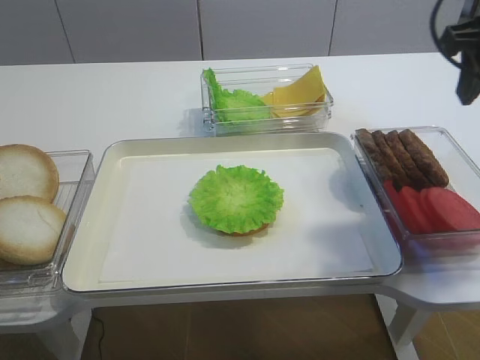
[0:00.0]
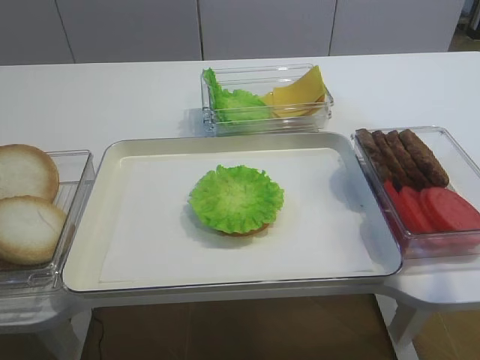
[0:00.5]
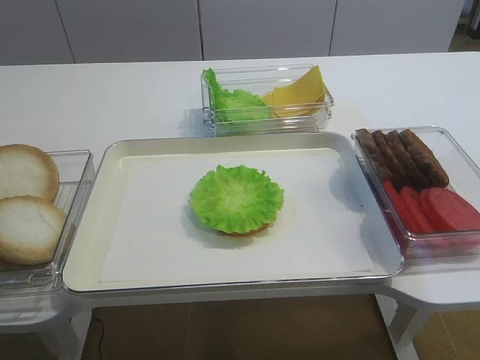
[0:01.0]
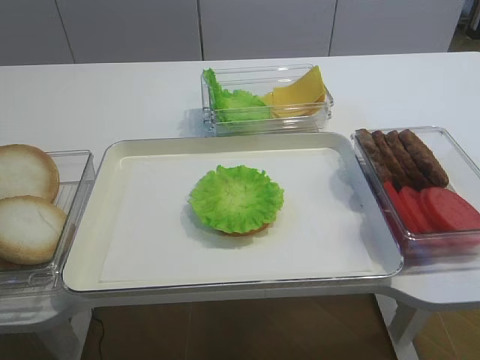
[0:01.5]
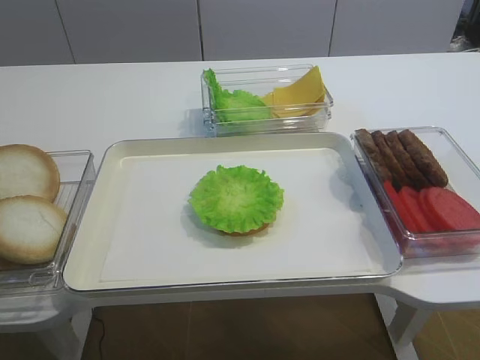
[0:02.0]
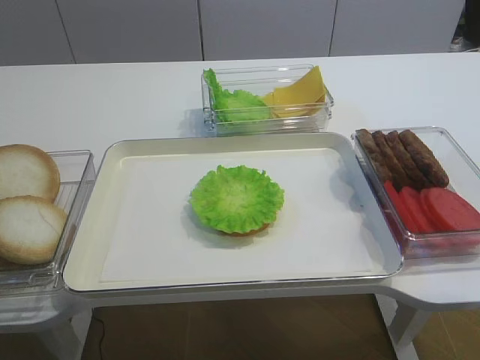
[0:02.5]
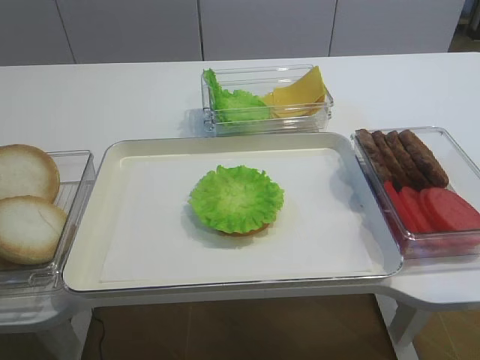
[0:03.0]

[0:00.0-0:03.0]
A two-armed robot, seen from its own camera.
0:00.0 to 0:01.5: The right gripper heads backward, covering approximately 25 cm.

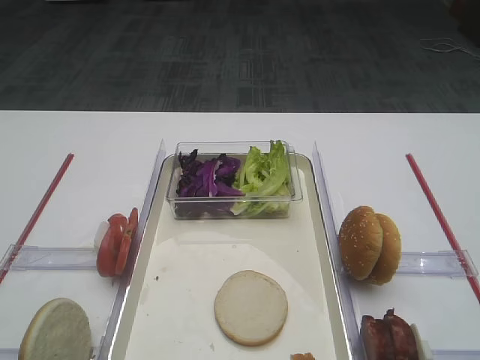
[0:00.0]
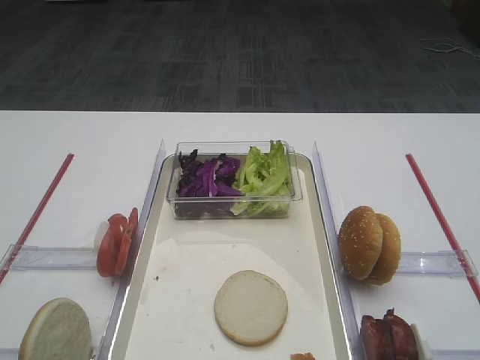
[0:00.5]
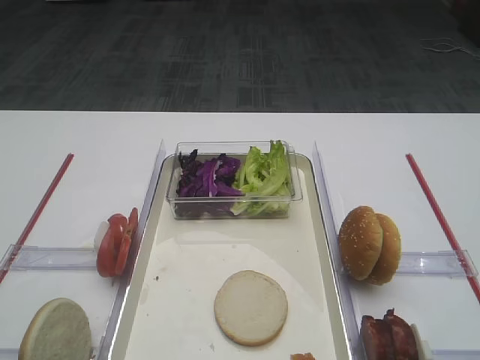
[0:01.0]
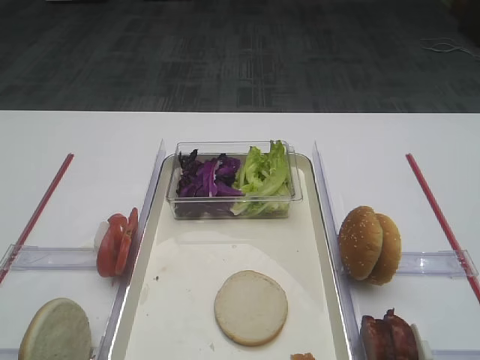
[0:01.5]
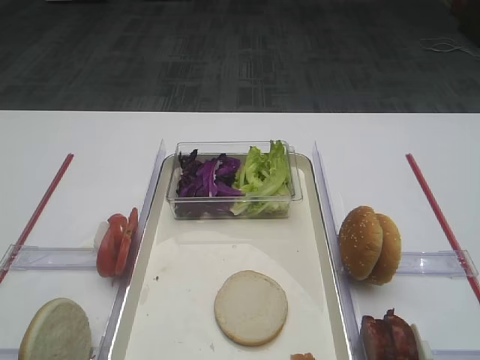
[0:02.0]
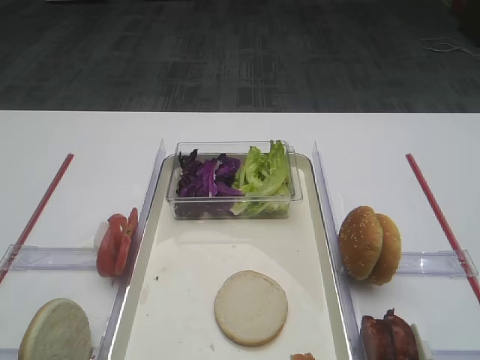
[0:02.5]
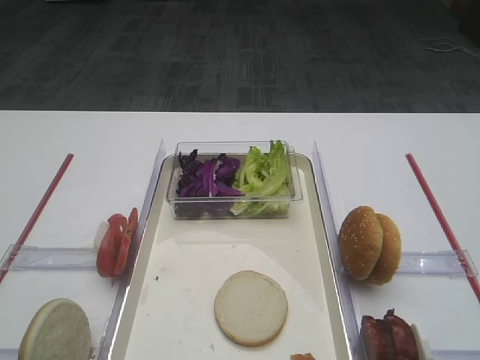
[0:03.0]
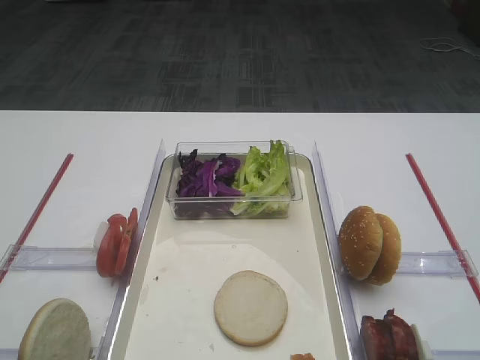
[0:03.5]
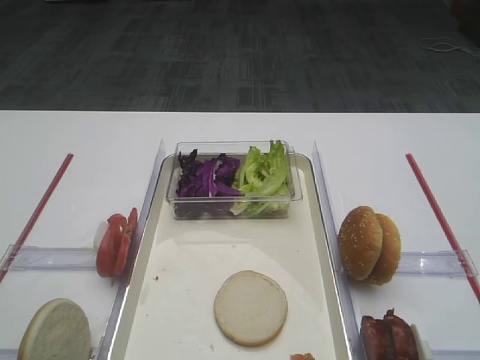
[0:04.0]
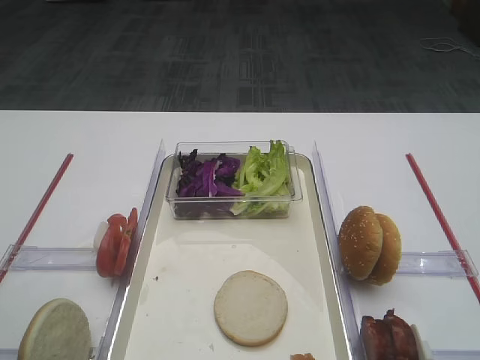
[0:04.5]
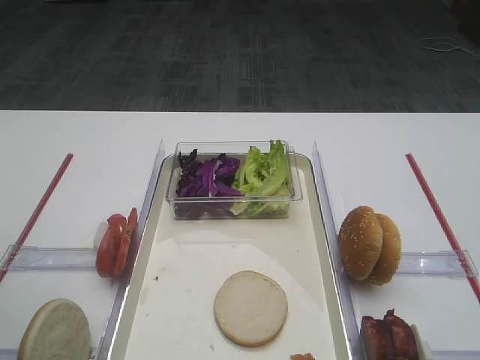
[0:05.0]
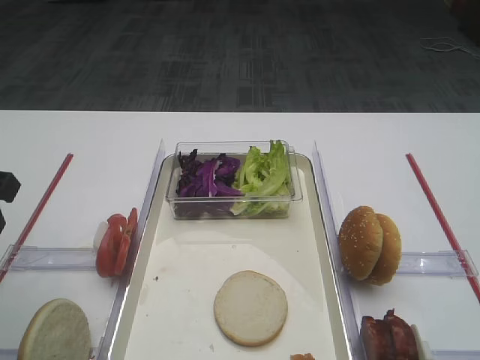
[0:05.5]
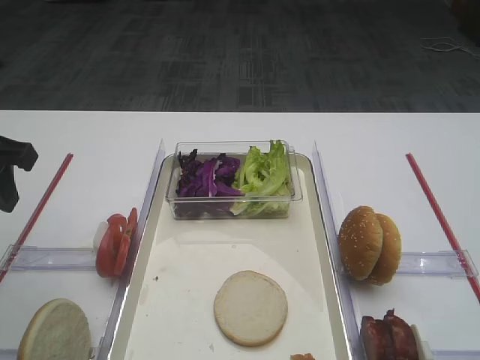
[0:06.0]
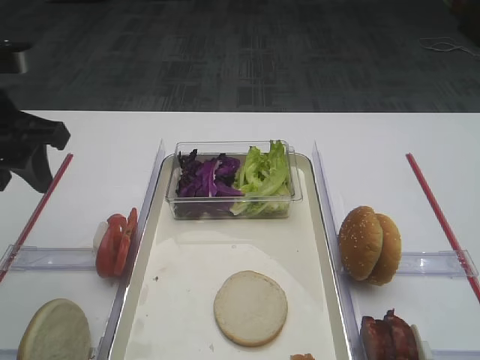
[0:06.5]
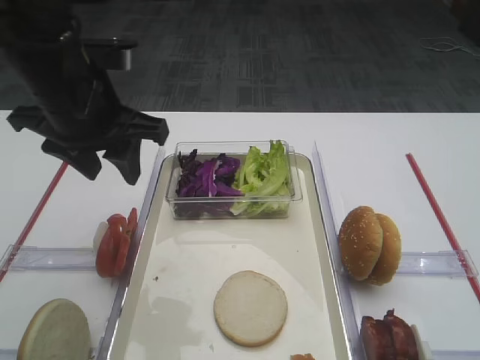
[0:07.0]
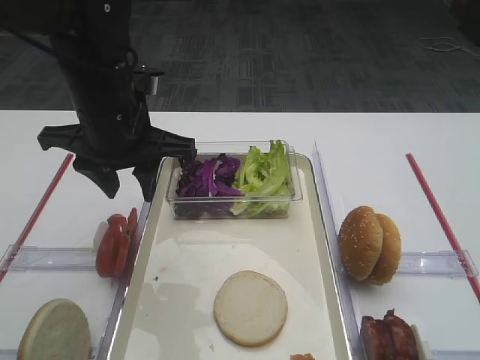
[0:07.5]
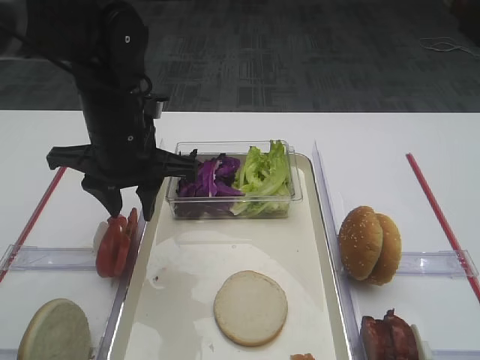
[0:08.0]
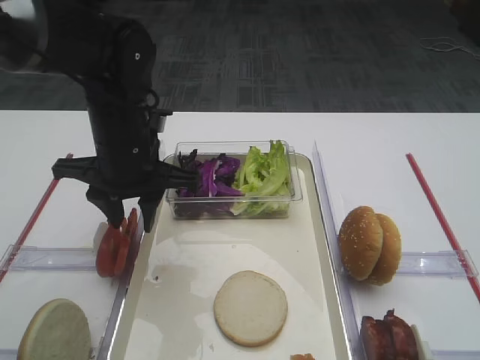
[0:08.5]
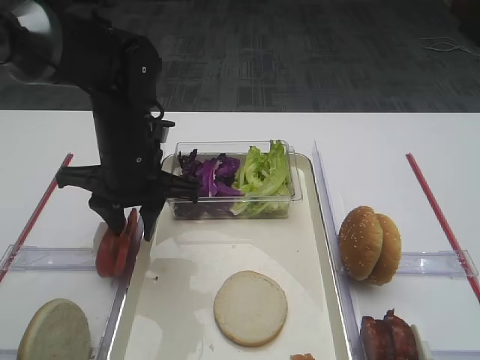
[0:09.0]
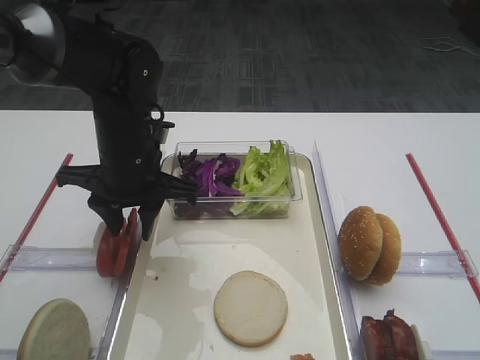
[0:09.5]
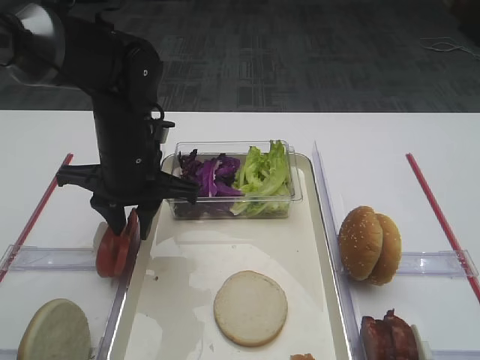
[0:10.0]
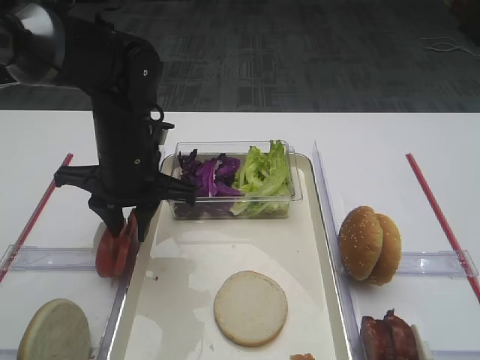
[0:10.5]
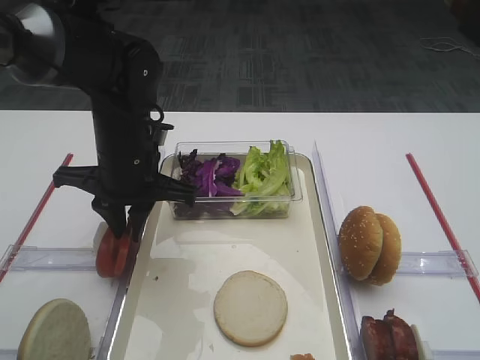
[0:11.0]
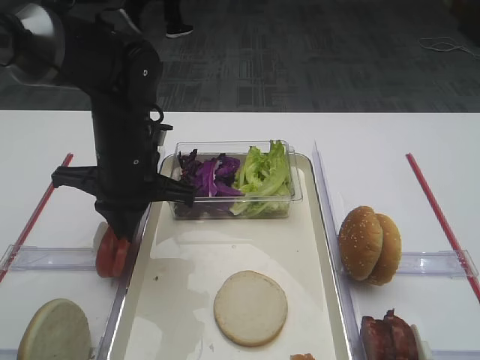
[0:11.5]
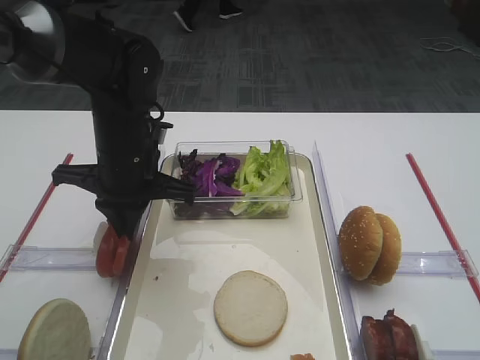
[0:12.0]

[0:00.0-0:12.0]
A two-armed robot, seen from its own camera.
0:04.0 to 0:06.0: The left gripper is displaced forward by roughly 15 cm.
0:06.0 to 0:08.0: The left gripper heads to the right and forward, covering some 15 cm.
0:08.0 to 0:10.0: The grippers move only a little.
0:10.0 to 0:12.0: The left gripper closes up.

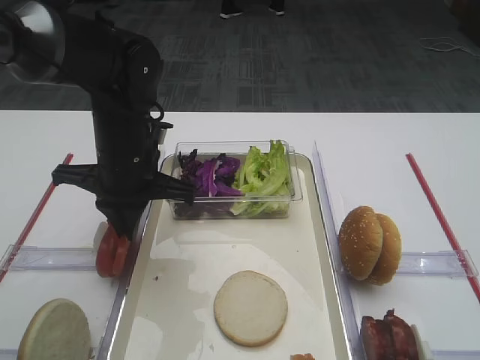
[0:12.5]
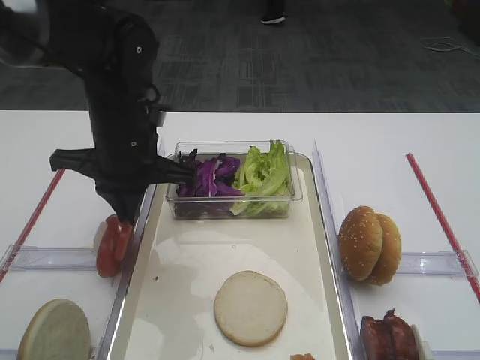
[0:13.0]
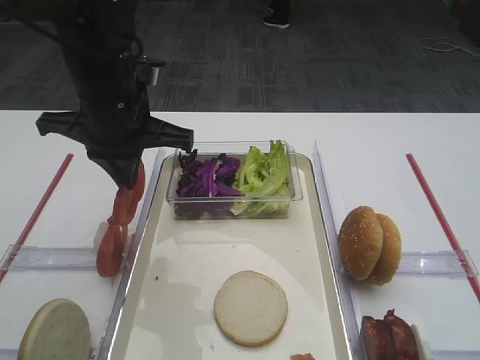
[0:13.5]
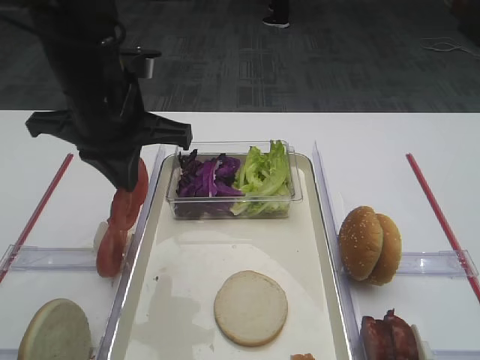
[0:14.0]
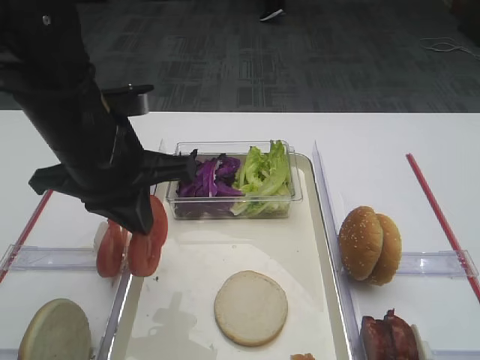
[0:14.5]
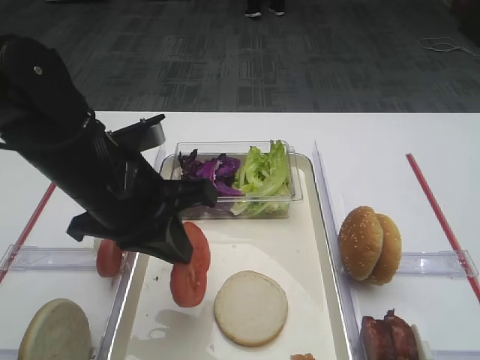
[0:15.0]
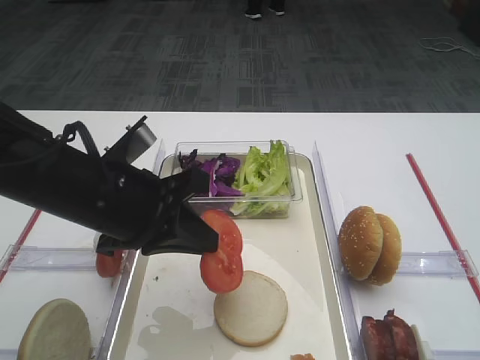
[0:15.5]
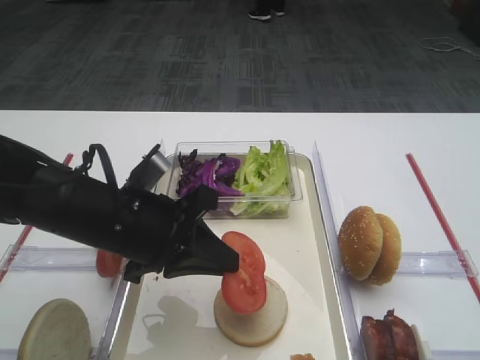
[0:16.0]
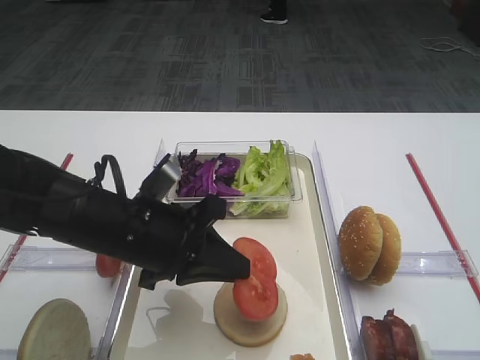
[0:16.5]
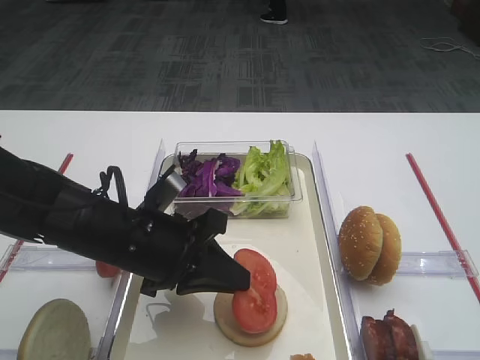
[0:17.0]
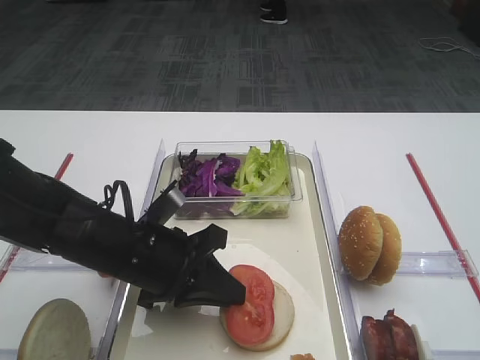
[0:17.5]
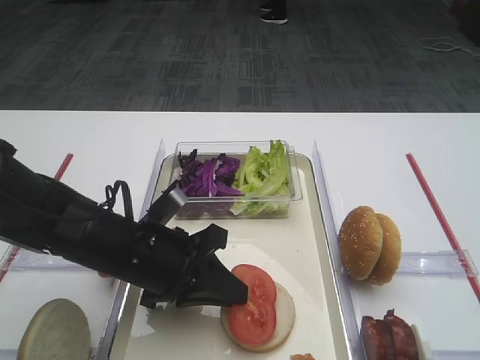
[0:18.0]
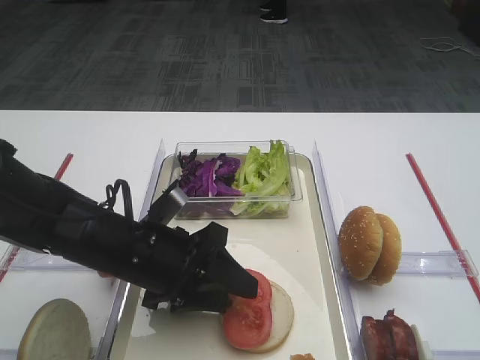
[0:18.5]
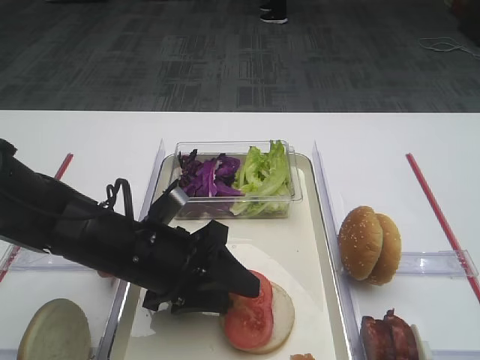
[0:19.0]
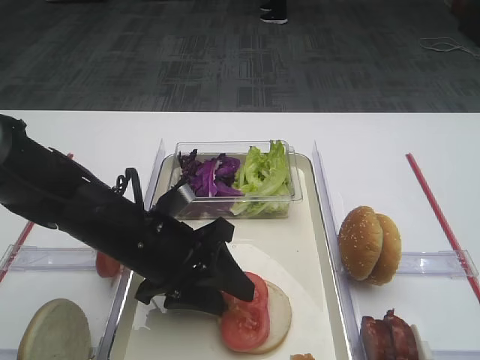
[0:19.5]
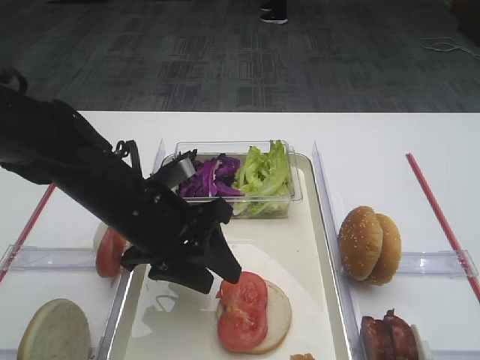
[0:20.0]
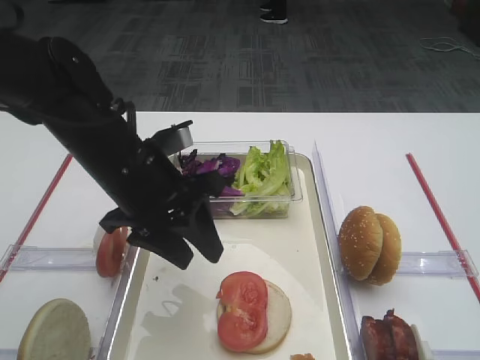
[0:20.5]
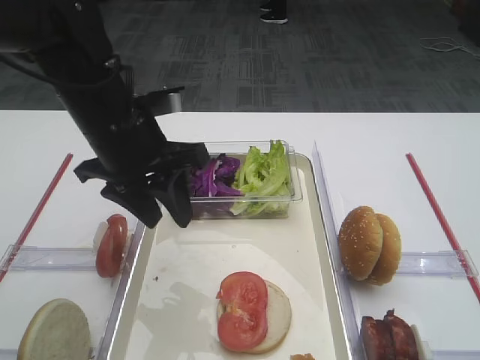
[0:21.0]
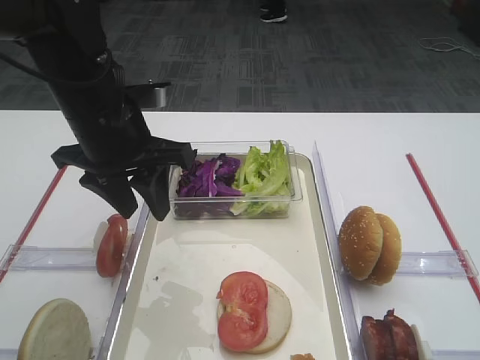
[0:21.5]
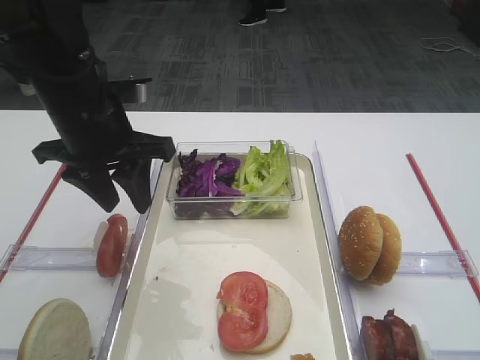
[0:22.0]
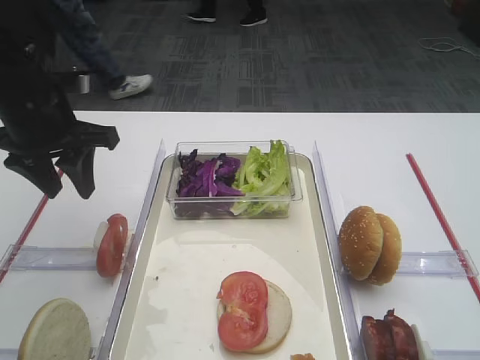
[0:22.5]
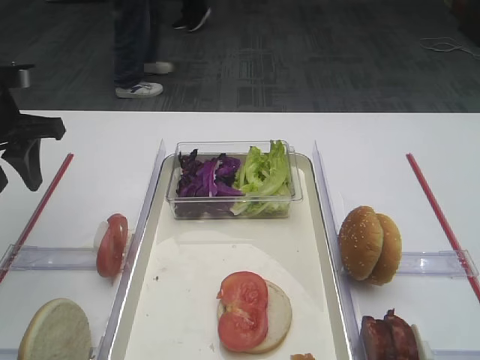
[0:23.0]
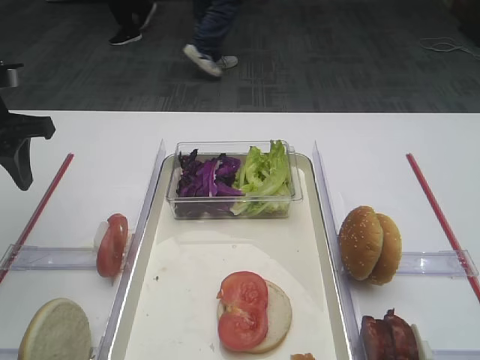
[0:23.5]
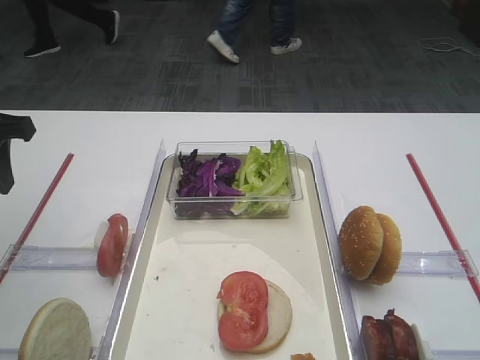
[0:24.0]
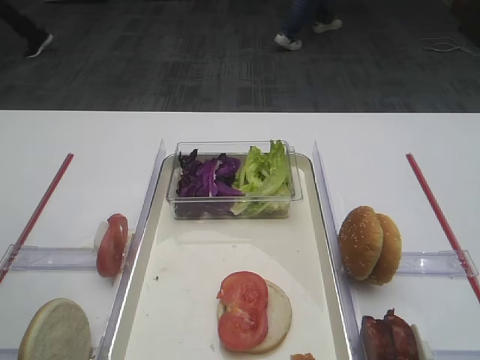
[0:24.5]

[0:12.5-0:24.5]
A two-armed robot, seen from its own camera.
Step, 0:14.0 to 0:20.0: Place the tomato slice on the bread slice with the left gripper.
0:12.5 to 0:14.5: The left gripper moves backward and upward, approximately 10 cm.
0:14.5 to 0:16.5: The left gripper heads downward, covering some 10 cm.
0:16.5 to 0:18.5: The left gripper opens its fingers.
0:18.5 to 0:20.5: The left gripper moves upward, some 10 cm.
0:20.5 to 0:22.5: The left gripper travels to the left and forward by approximately 15 cm.
0:22.5 to 0:24.5: The left gripper travels backward, to the left and upward by roughly 15 cm.
